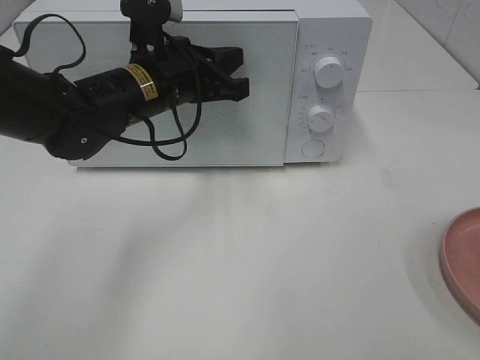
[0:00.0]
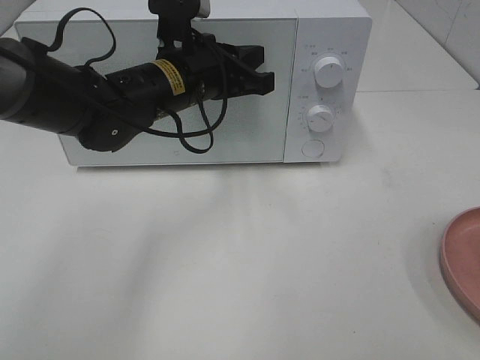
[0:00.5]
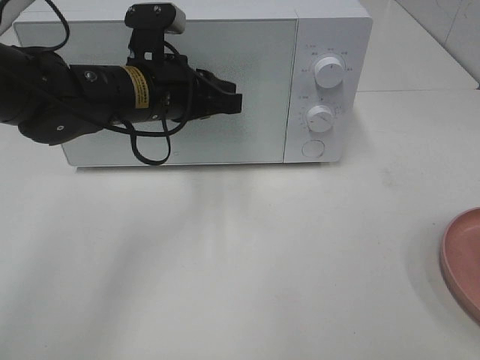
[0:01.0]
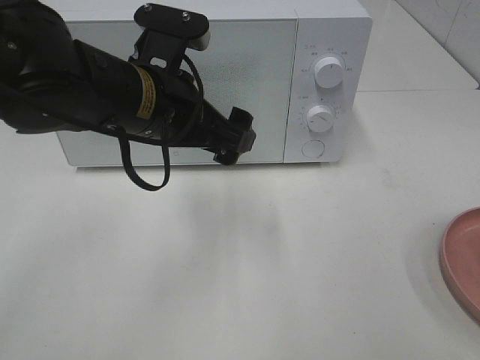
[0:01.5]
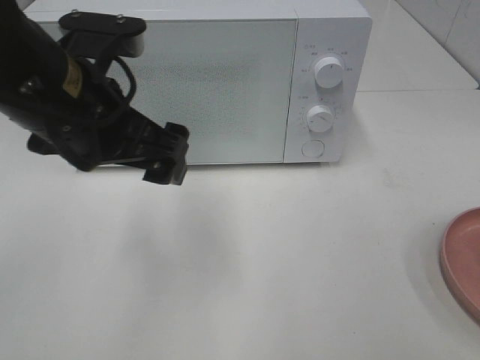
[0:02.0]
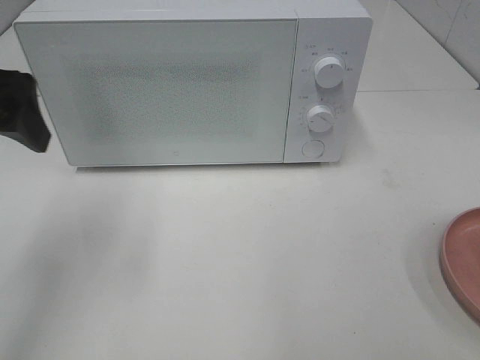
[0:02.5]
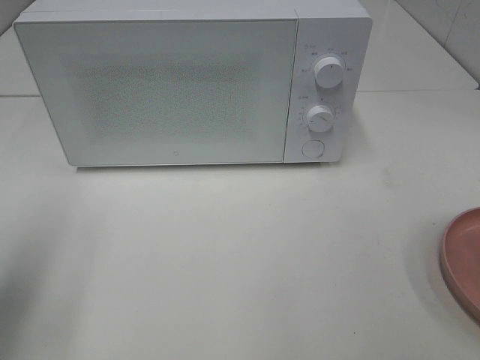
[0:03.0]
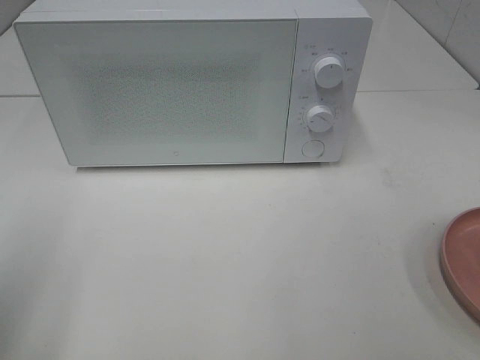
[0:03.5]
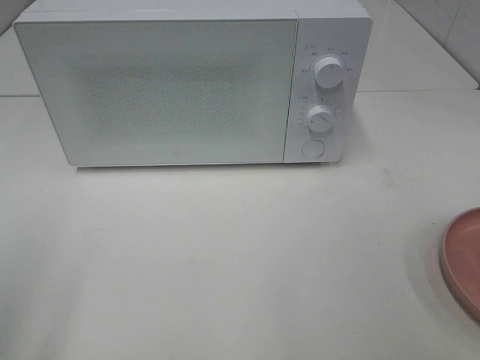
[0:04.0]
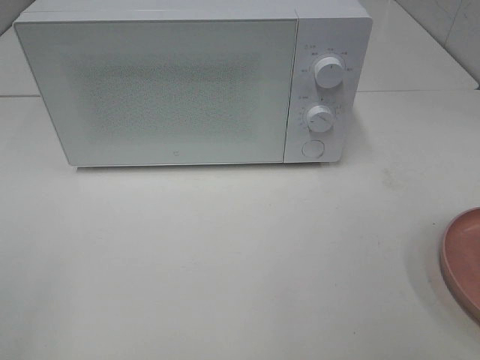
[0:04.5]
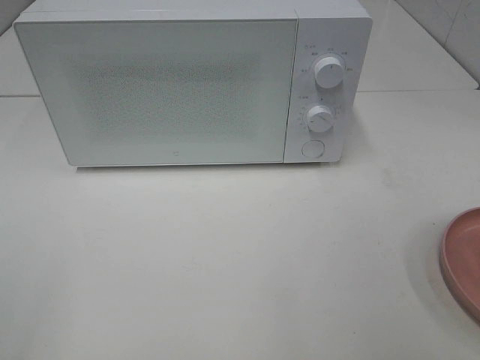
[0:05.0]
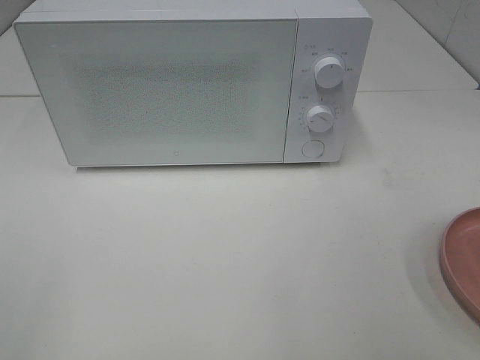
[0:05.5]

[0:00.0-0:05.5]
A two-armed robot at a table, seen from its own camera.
Task of the whole recording: Heat the burger.
0:00.0 to 0:02.0: The left gripper heads backward and upward, covering approximately 15 cm, and opens up.
0:02.0 to 0:03.5: The left gripper is displaced to the left and backward by about 20 cm.
